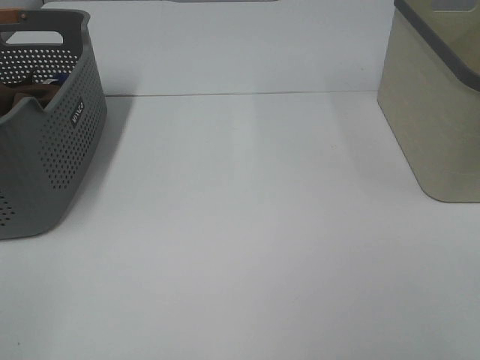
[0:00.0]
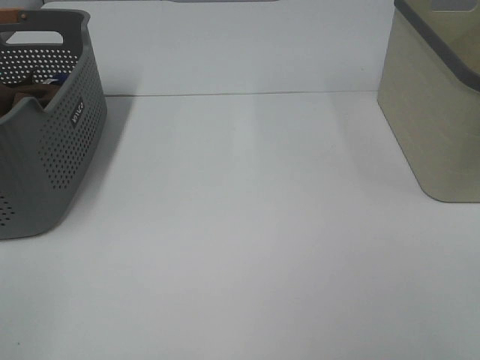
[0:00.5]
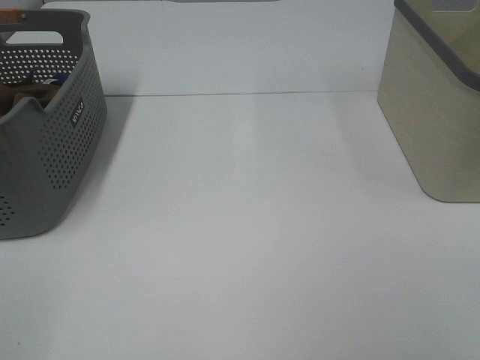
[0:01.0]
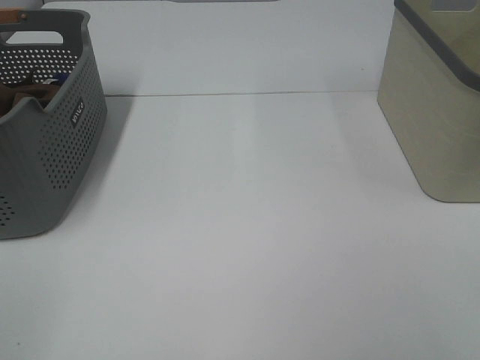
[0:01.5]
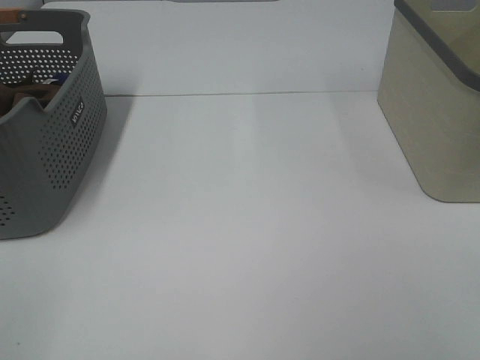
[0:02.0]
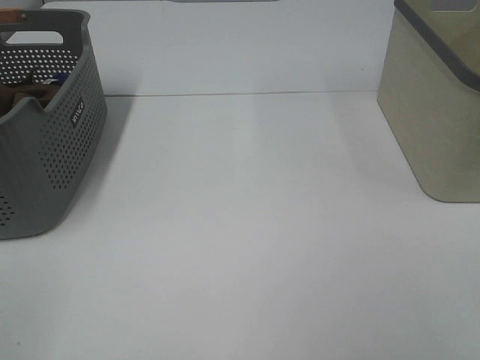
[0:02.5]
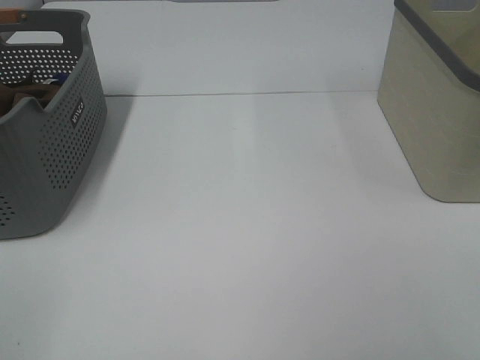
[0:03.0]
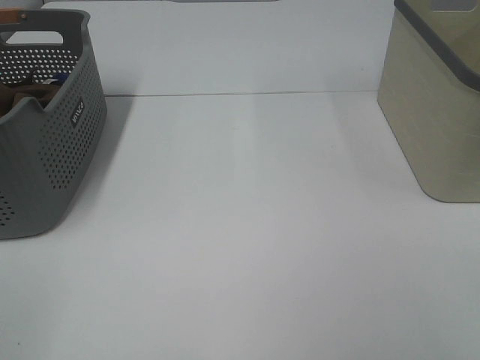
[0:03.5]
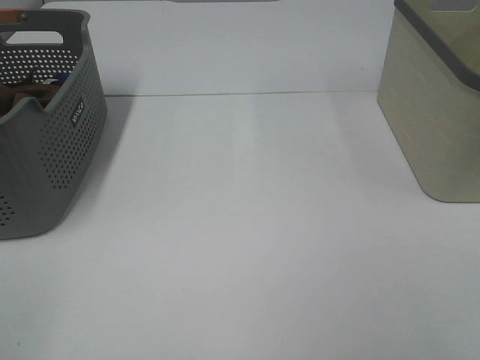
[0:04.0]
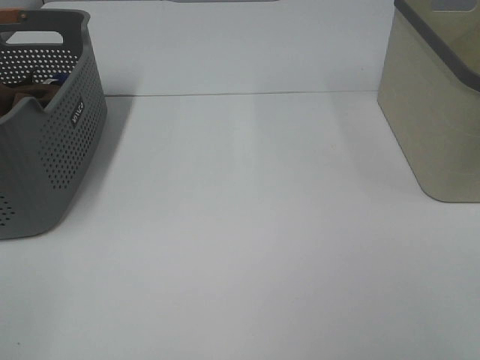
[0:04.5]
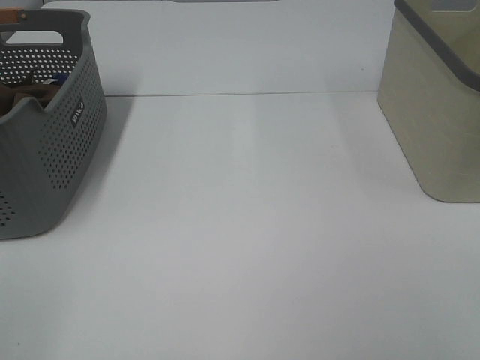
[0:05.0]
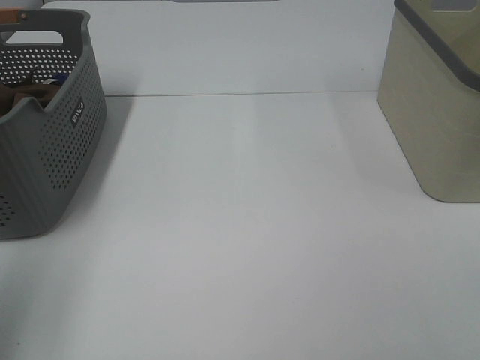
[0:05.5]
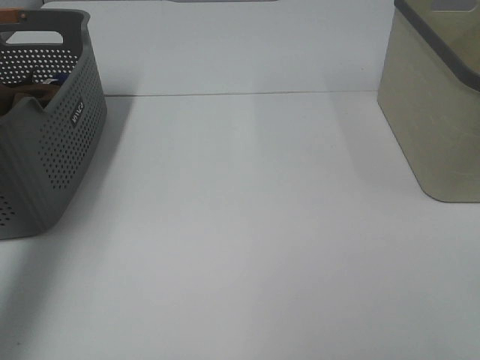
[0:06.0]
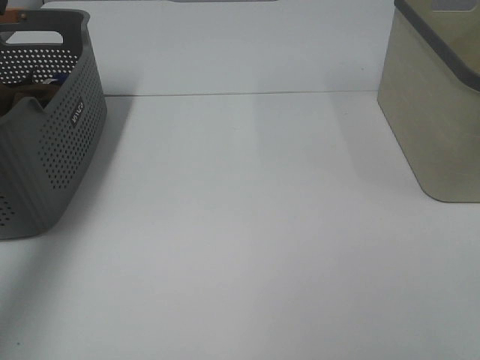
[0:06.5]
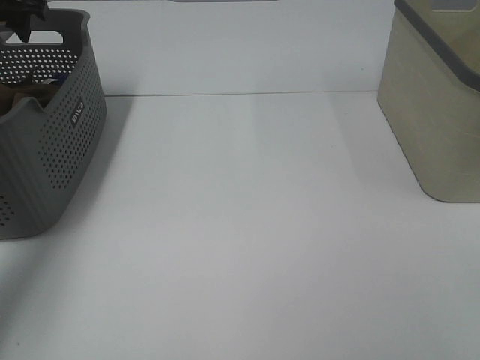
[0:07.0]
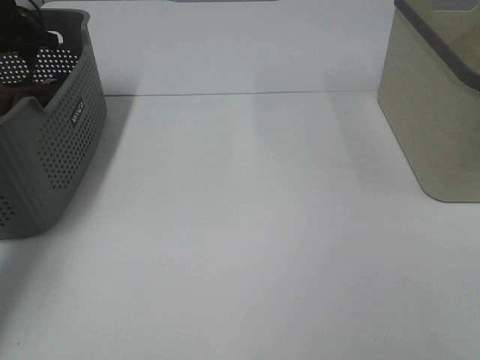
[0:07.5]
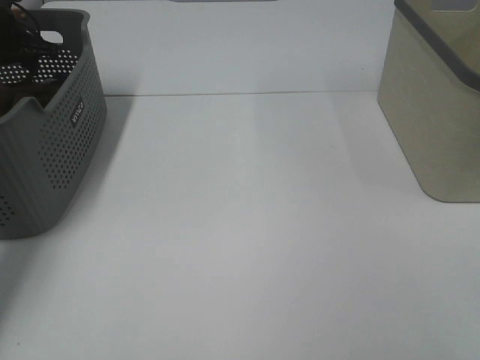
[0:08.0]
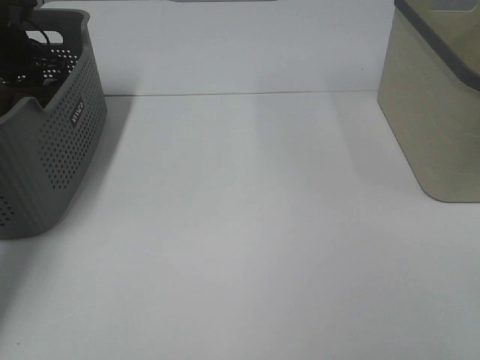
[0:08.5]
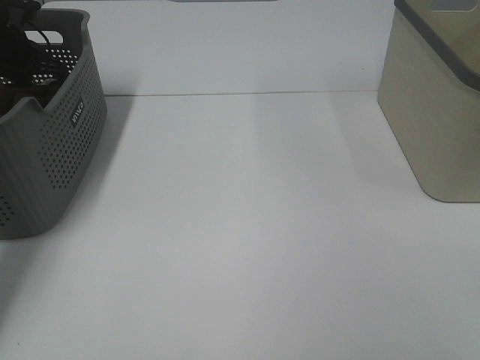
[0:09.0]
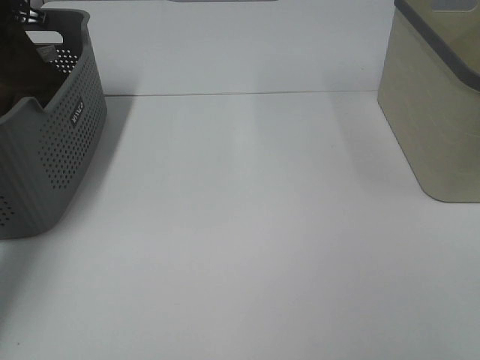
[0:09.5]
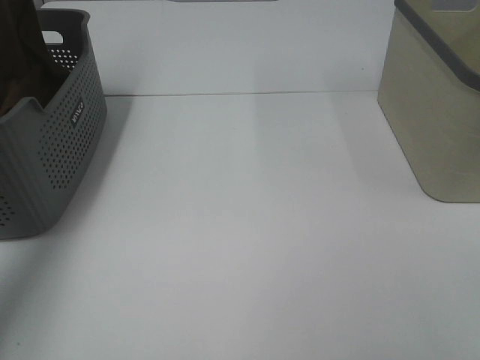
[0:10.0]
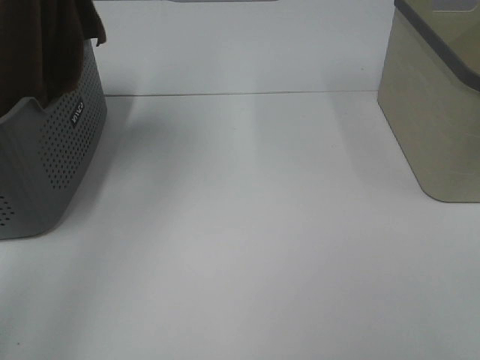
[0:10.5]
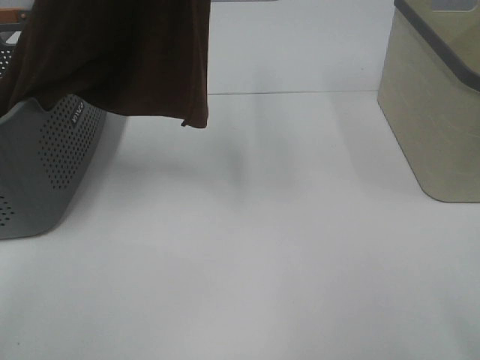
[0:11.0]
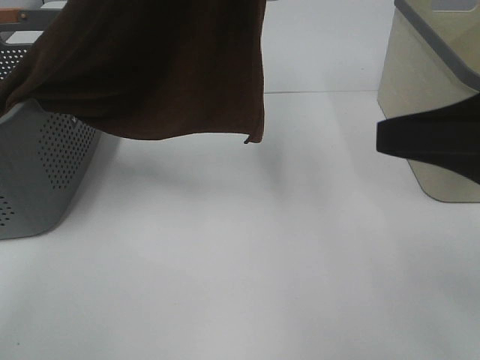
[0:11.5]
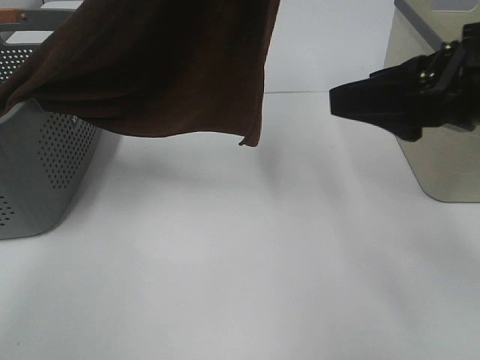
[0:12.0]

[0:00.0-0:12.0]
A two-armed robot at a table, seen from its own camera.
Task of the whole recording: Remove the towel and place it.
0:00.0 to 0:04.0: Neither gripper changes place.
0:04.0 to 0:06.0: The left gripper goes some 25 cm forward.
0:06.0 to 0:08.0: The left gripper goes some 35 cm forward and downward.
0:08.0 to 0:10.0: The left gripper shifts roughly 20 cm upward, and closes up.
0:10.0 to 0:12.0: The right gripper moves forward, about 20 cm; the left gripper is displaced to the right and backward by about 30 cm.

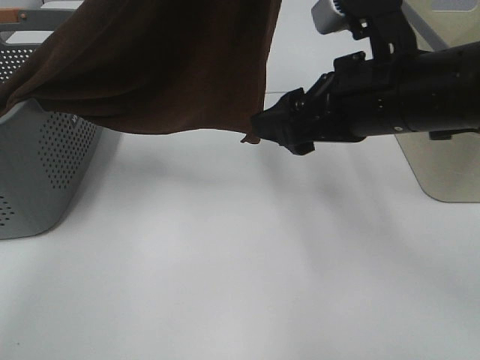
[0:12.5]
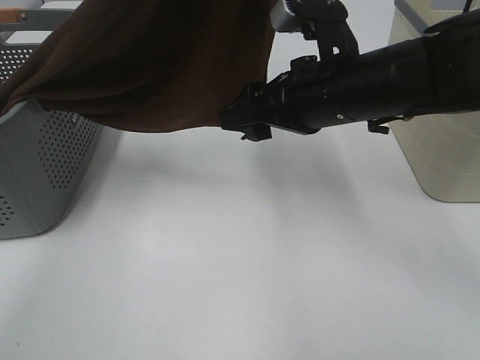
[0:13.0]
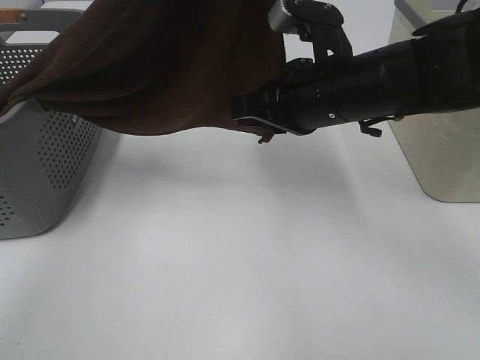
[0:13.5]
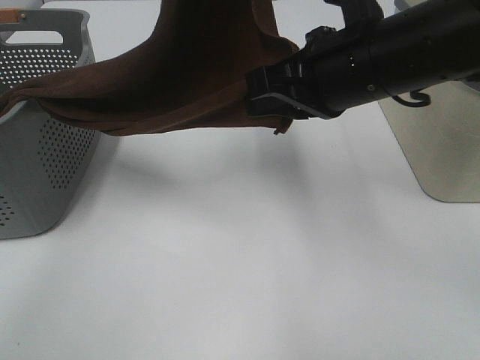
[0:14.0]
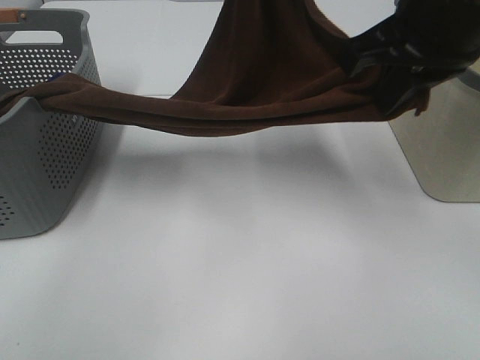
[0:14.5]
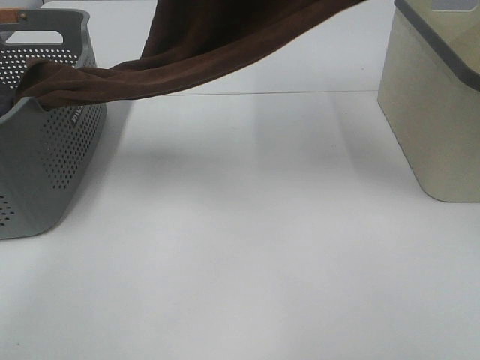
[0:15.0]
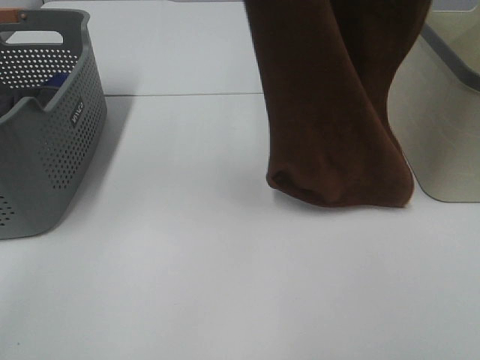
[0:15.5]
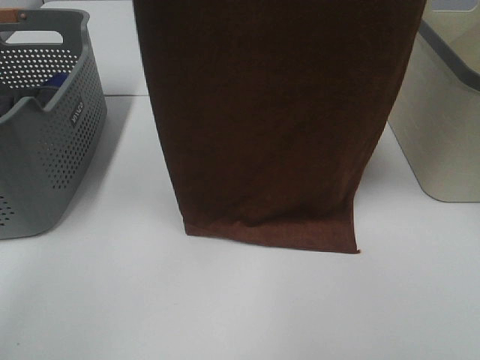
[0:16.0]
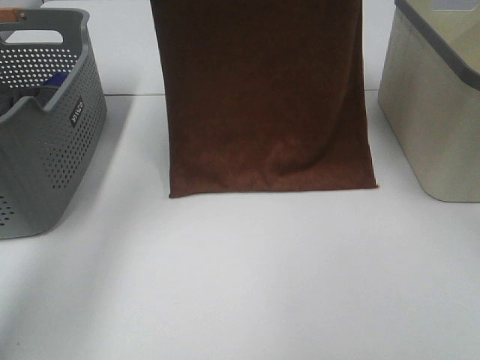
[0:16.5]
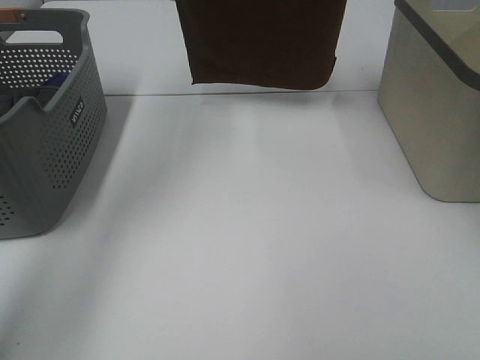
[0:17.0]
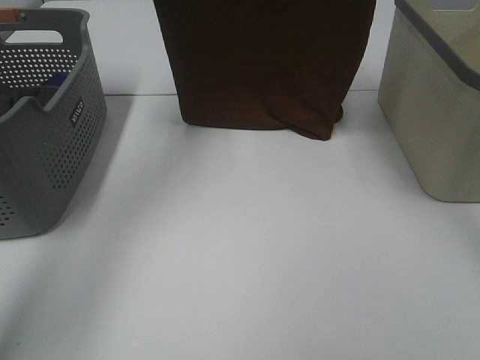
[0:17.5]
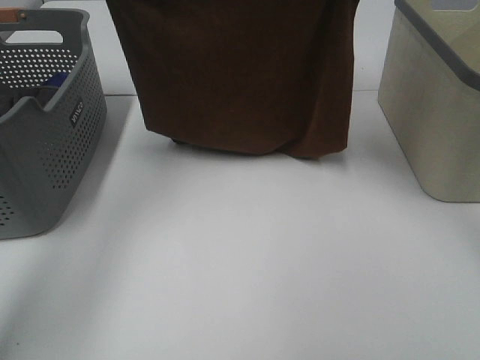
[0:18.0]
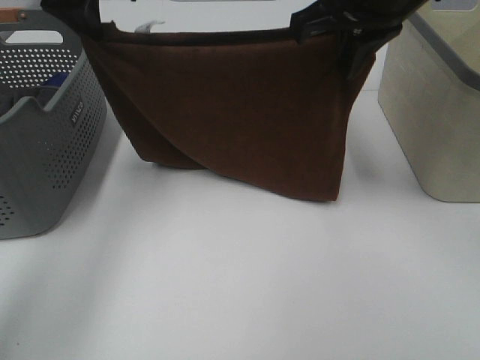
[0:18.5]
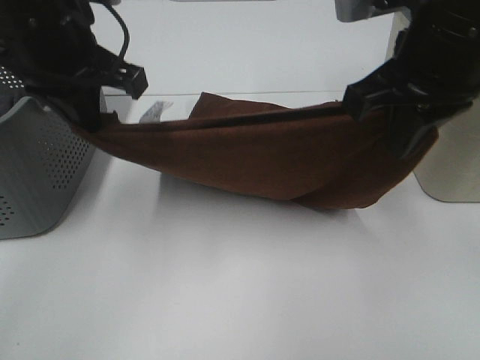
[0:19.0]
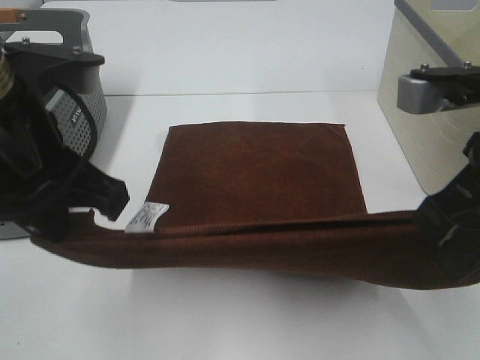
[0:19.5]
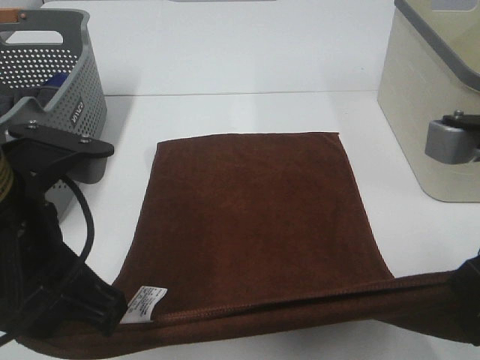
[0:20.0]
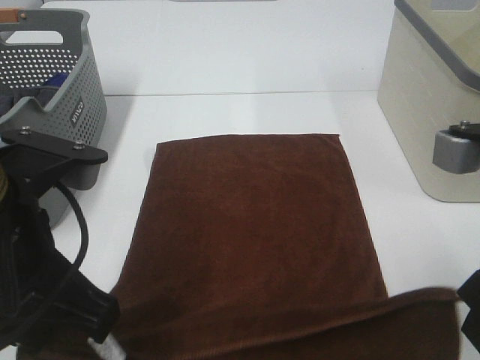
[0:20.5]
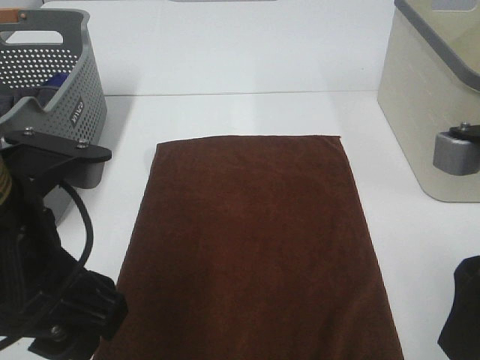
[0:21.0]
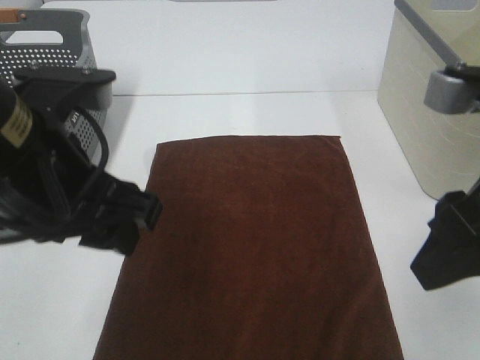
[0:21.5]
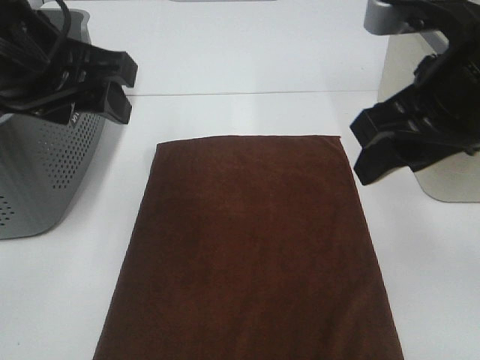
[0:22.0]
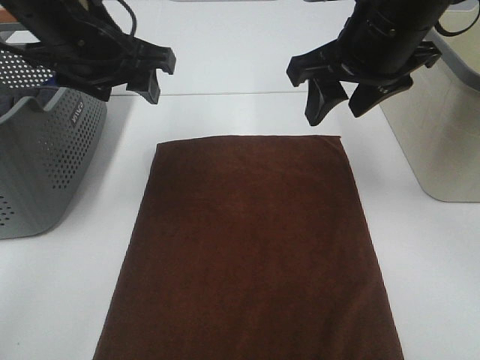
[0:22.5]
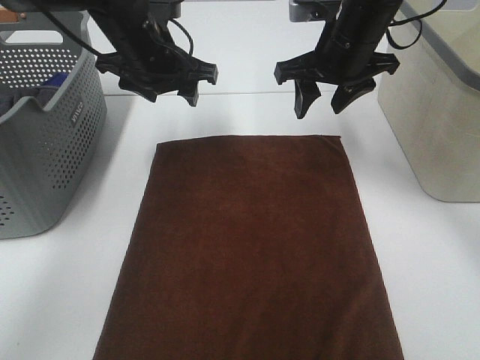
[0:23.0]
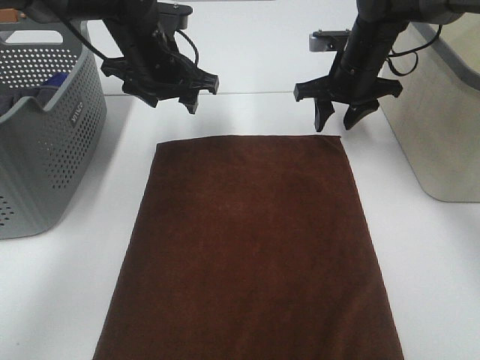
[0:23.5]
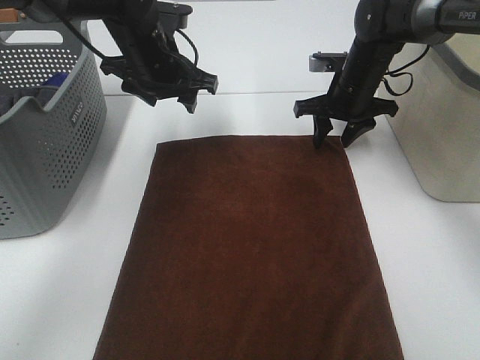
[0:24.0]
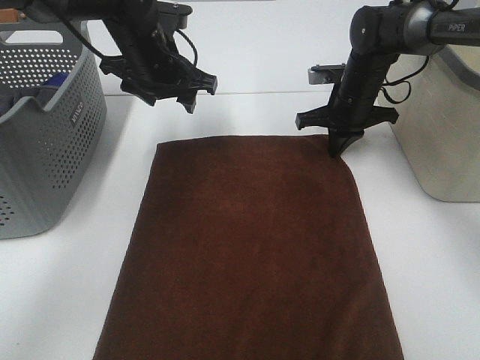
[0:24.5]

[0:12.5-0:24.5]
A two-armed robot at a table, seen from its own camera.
Task of the whole recording: Remove the towel and place it.
Step, 0:13.0 to 0:16.5: Left hand: spread the brown towel flat on the table.
Step, 0:13.0 to 0:16.5: Right hand: spread the brown towel flat on the table.
Step, 0:17.0 to 0:23.0: Left hand:adjust the brown towel.
Step, 0:17.0 to 0:23.0: Right hand:adjust the brown towel.
0:12.5 to 0:14.5: The left gripper heads downward and forward, covering roughly 15 cm. Meanwhile the right gripper shifts some 10 cm upward, and closes.
0:14.5 to 0:16.5: The left gripper moves to the left and forward, some 15 cm, while the right gripper heads forward and upward, covering approximately 20 cm.
0:16.5 to 0:18.5: The grippers both shift downward and backward by roughly 15 cm.
0:18.5 to 0:20.5: The right gripper moves backward and to the right, about 20 cm. The left gripper shifts roughly 25 cm backward.
0:20.5 to 0:22.5: The two grippers go approximately 20 cm forward. The left gripper opens. The right gripper opens up.
0:22.5 to 0:24.5: The left gripper shifts roughly 10 cm forward and downward, while the right gripper heads downward and forward, covering roughly 25 cm, and closes up.

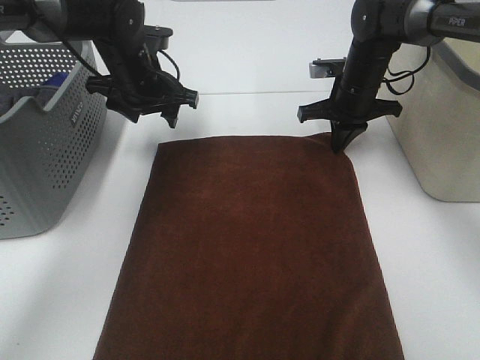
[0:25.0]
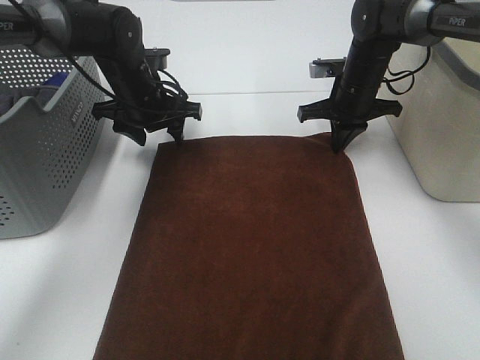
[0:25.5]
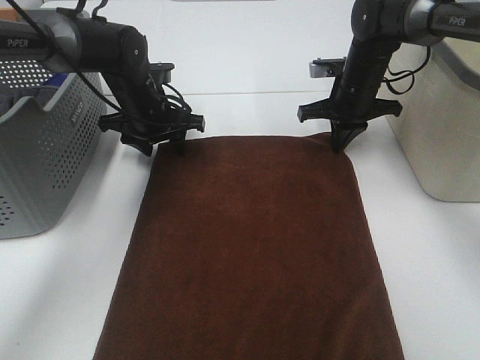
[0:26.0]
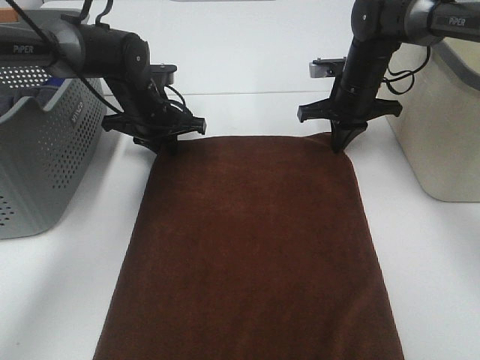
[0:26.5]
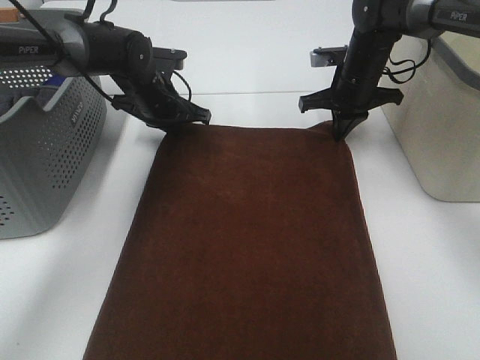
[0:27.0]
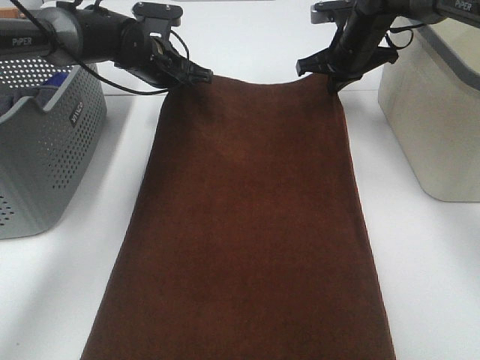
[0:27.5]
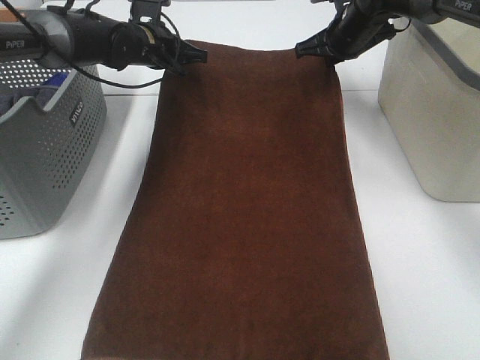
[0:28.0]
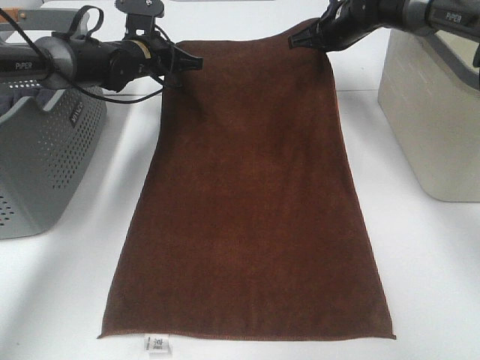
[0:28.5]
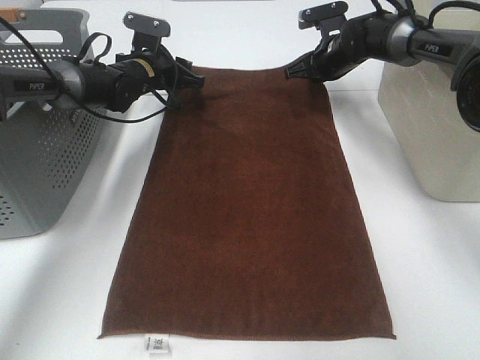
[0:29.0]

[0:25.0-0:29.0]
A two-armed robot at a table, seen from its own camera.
Task of the whole recording: Remove the towel and place it.
0:25.0 to 0:27.0: The left gripper changes place by about 5 cm, and closes its fingers.
0:27.0 to 0:29.0: The two grippers go about 5 cm forward. The left gripper opens.
